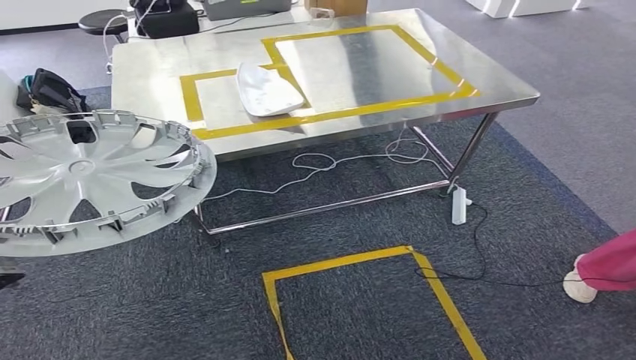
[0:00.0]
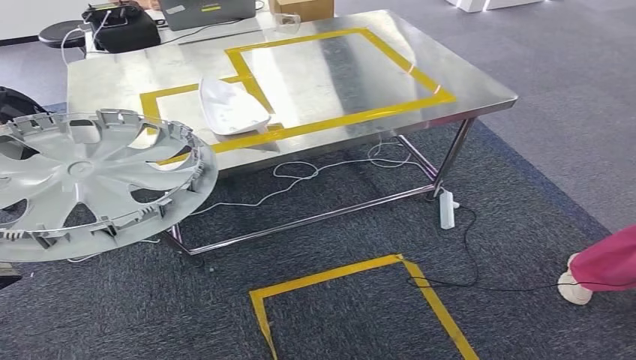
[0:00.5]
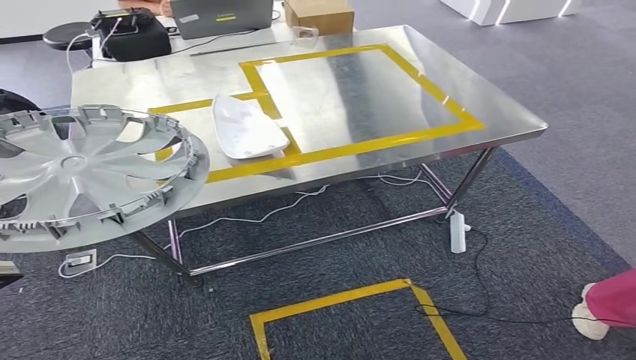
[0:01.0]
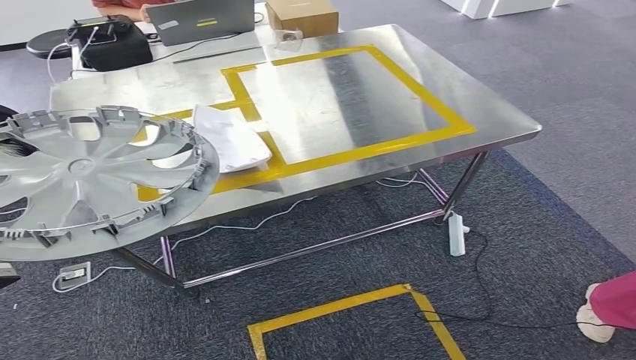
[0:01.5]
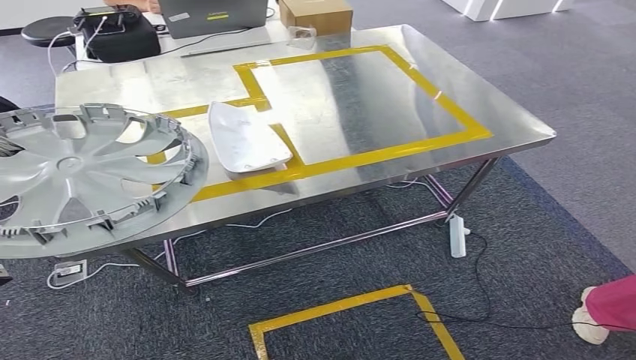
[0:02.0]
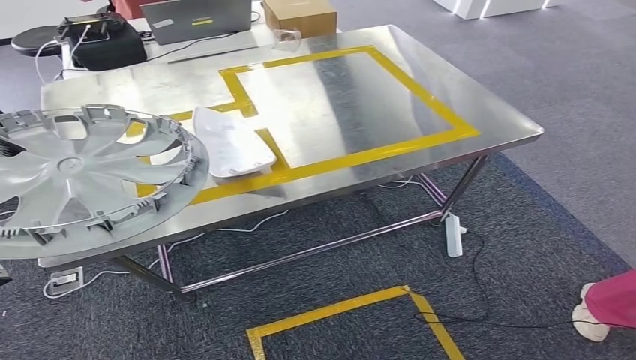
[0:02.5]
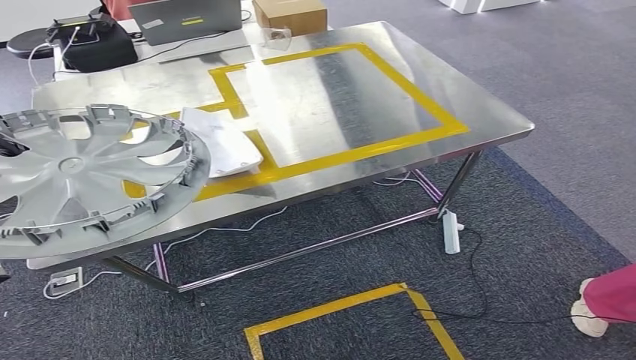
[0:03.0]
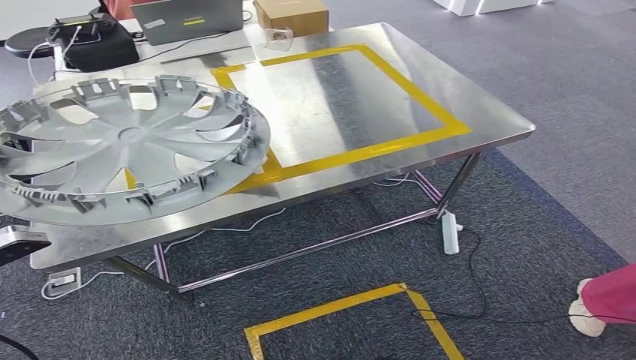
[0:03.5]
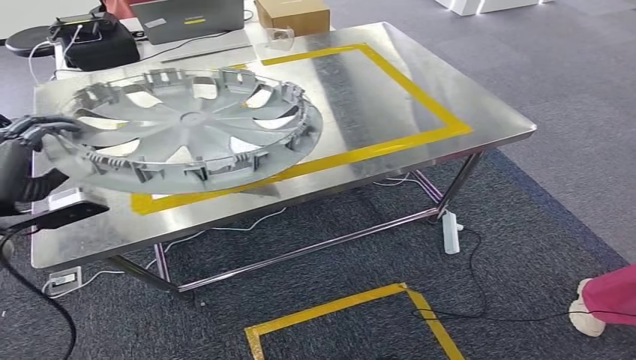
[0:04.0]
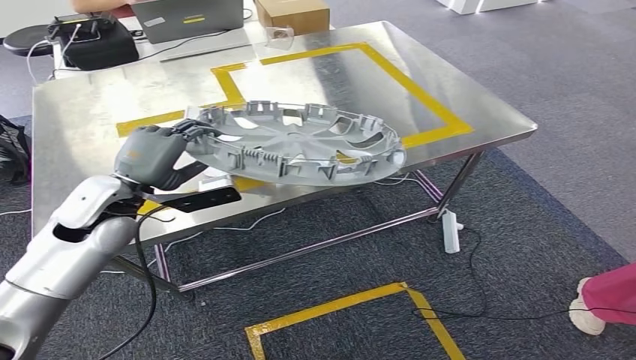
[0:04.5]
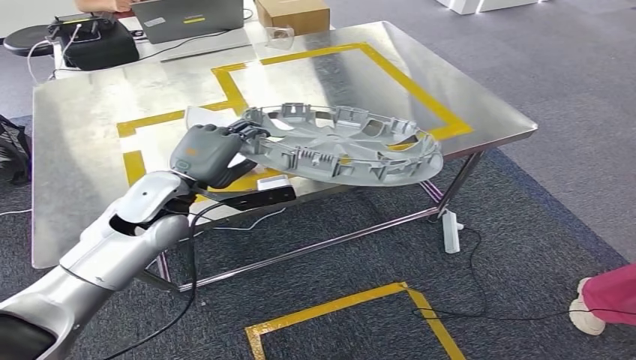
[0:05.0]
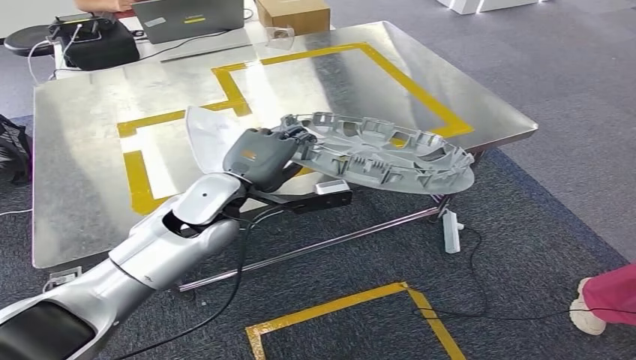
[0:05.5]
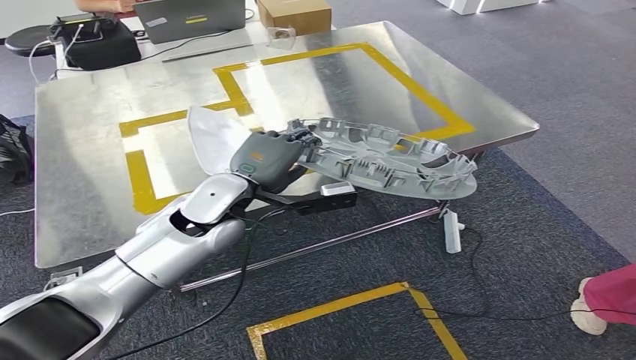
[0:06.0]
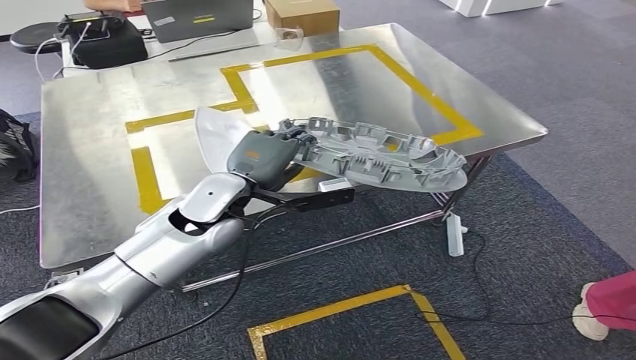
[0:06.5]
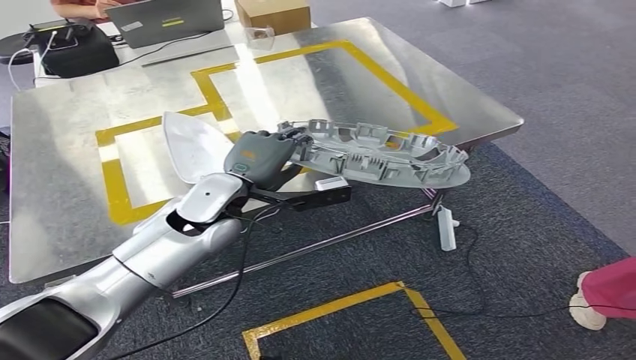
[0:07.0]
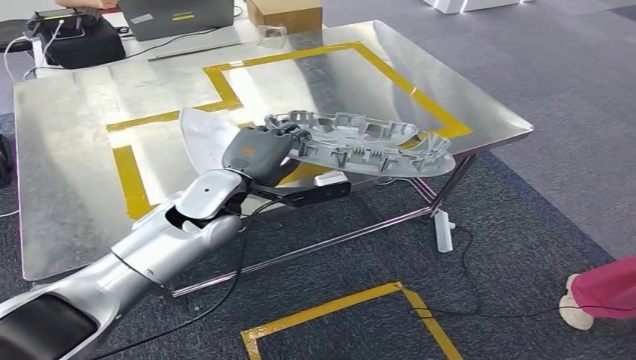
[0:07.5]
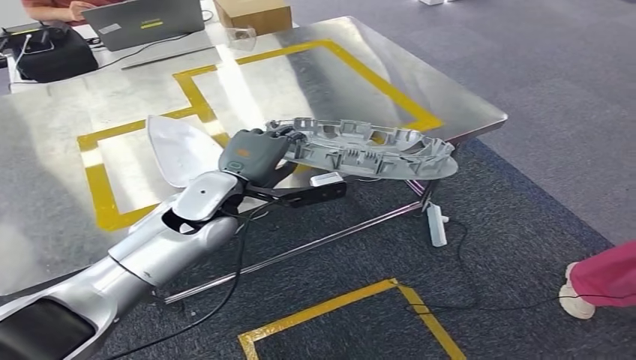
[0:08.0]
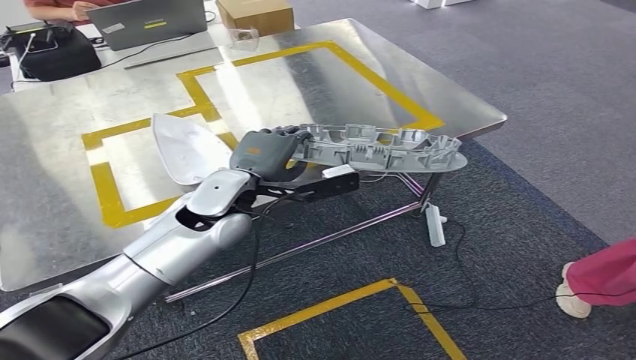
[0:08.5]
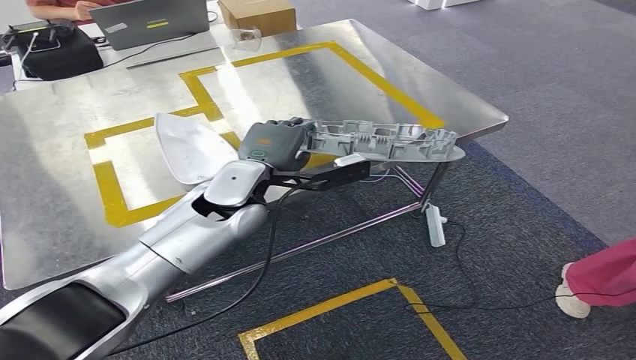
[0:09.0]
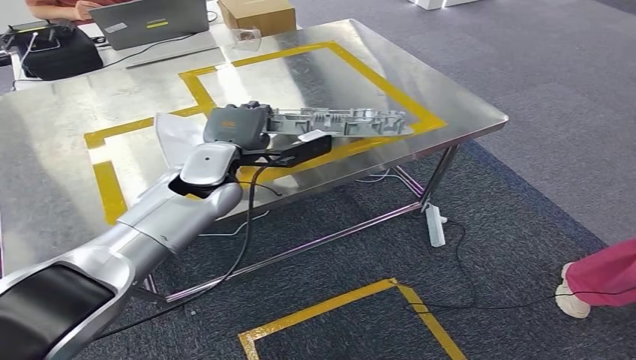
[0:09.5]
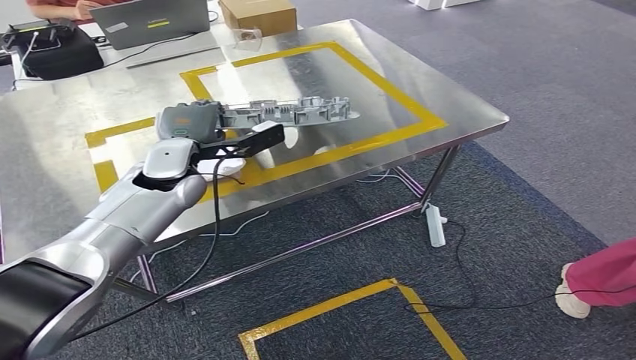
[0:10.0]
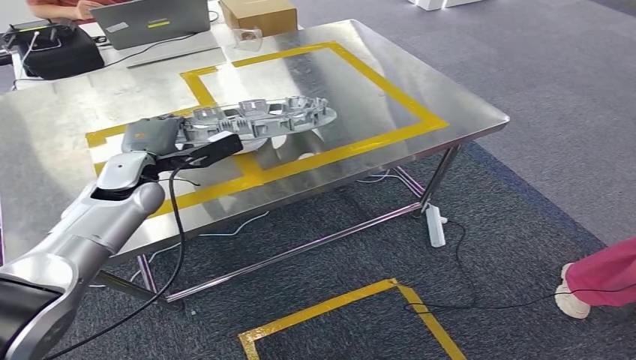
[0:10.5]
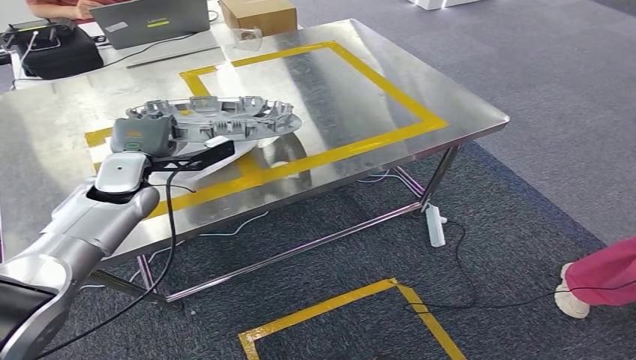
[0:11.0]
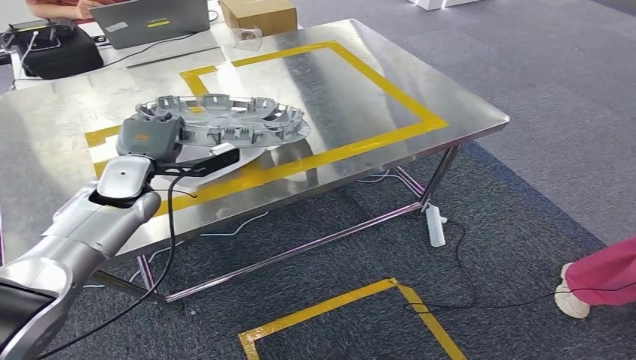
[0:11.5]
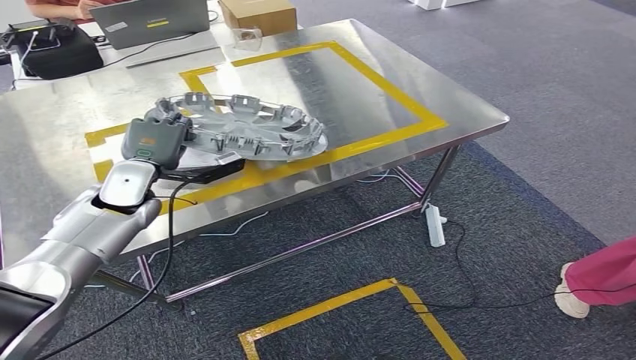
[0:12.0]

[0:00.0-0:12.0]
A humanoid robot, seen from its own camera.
0:10.0 to 0:12.0: The left hand heads to the left, covering some 10 cm.

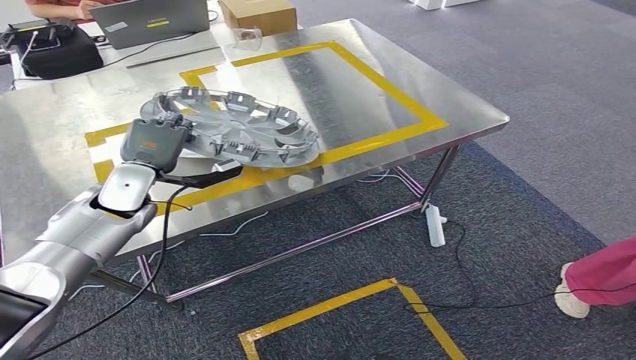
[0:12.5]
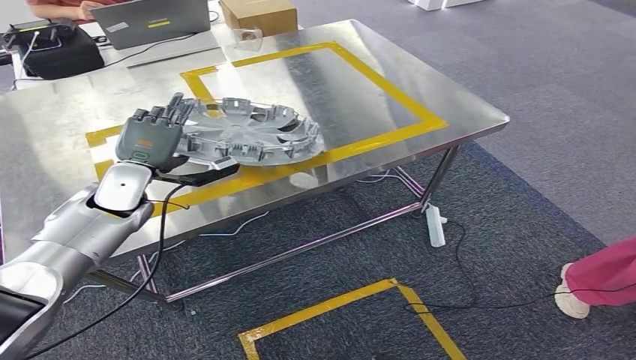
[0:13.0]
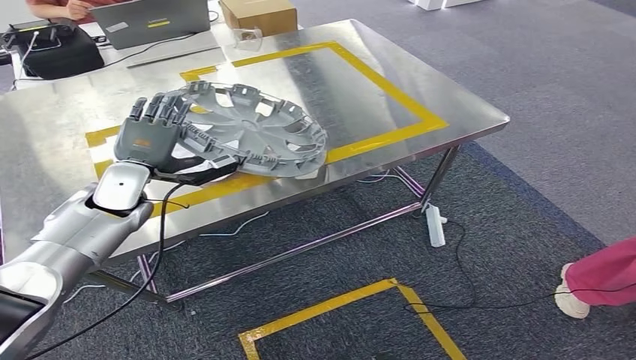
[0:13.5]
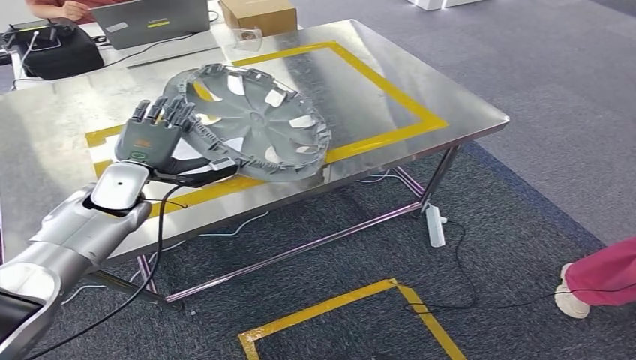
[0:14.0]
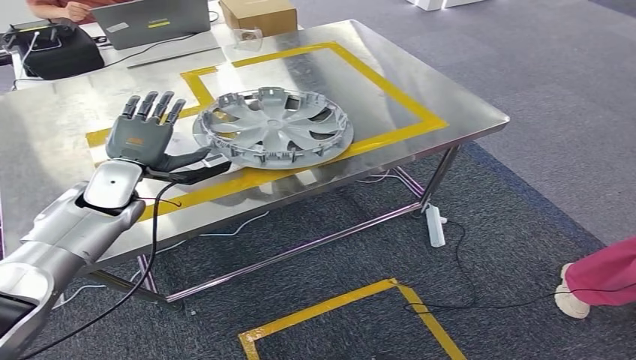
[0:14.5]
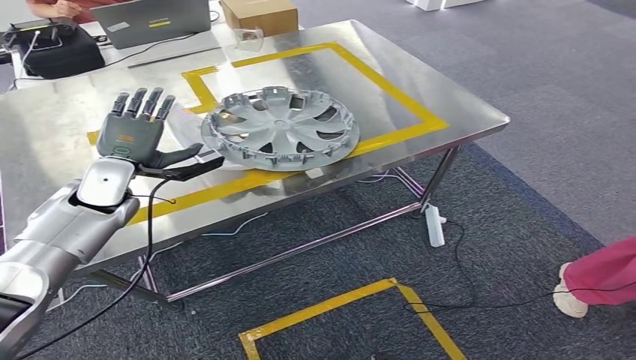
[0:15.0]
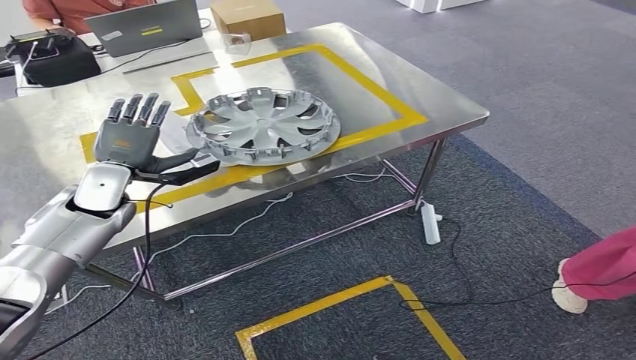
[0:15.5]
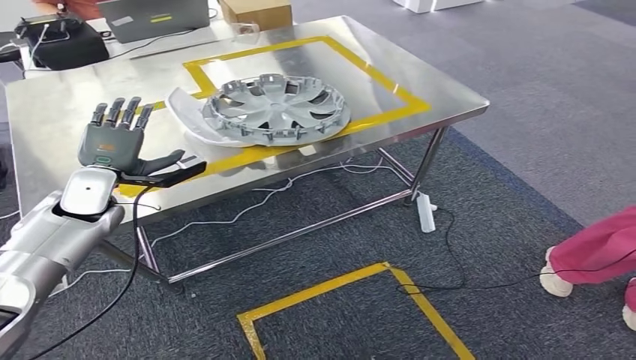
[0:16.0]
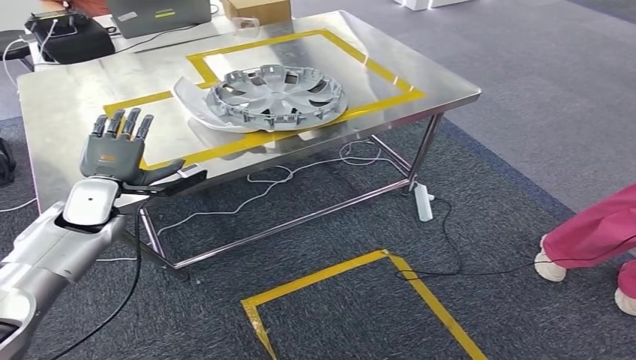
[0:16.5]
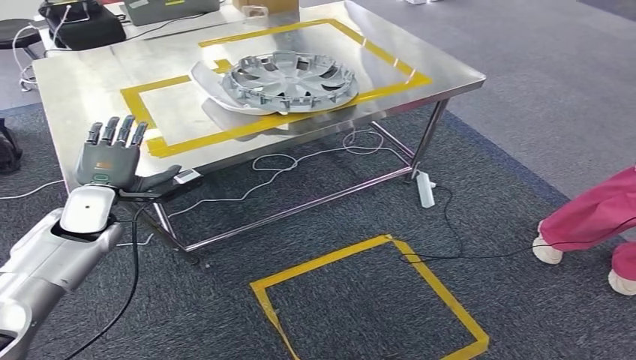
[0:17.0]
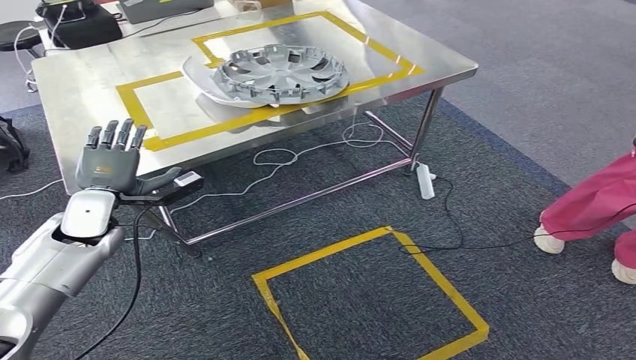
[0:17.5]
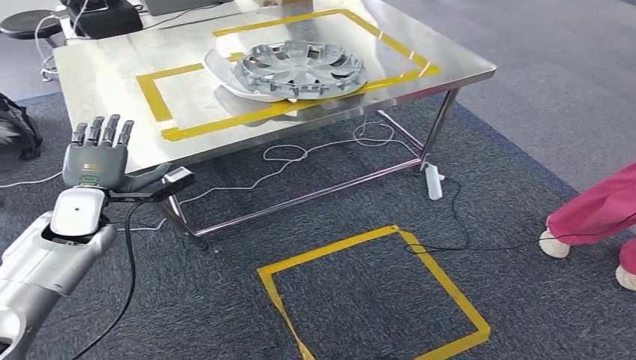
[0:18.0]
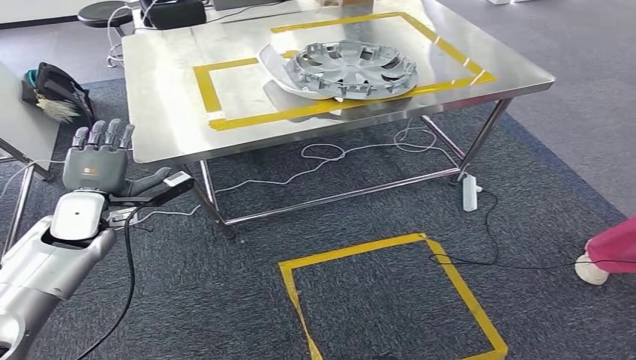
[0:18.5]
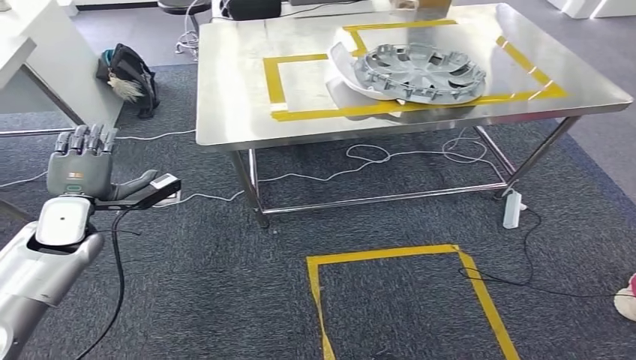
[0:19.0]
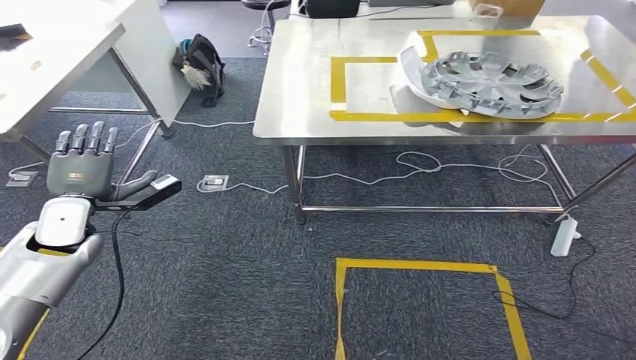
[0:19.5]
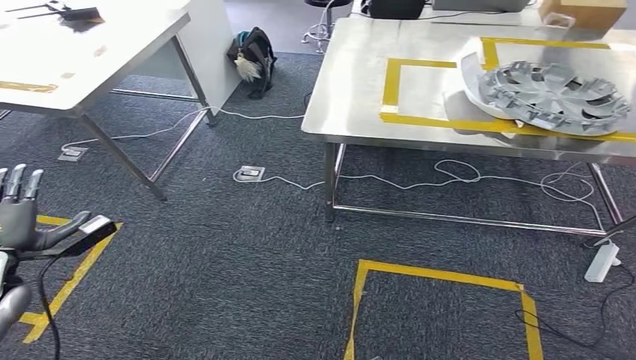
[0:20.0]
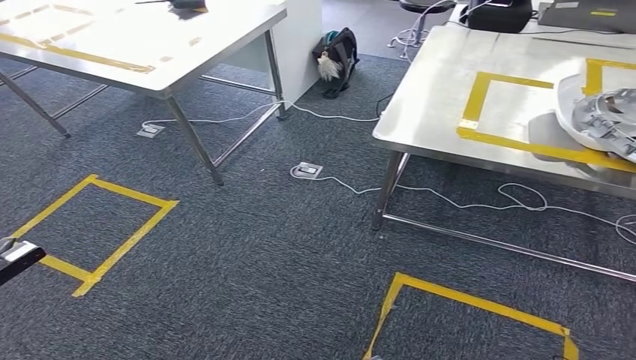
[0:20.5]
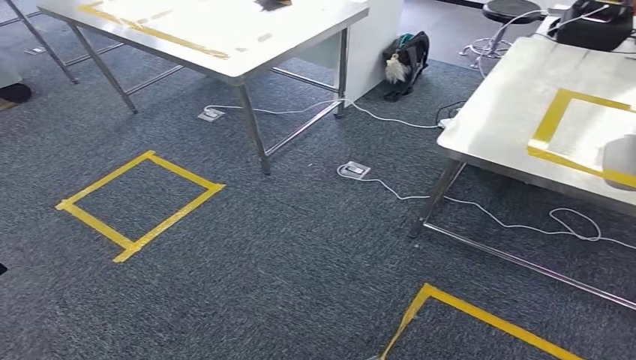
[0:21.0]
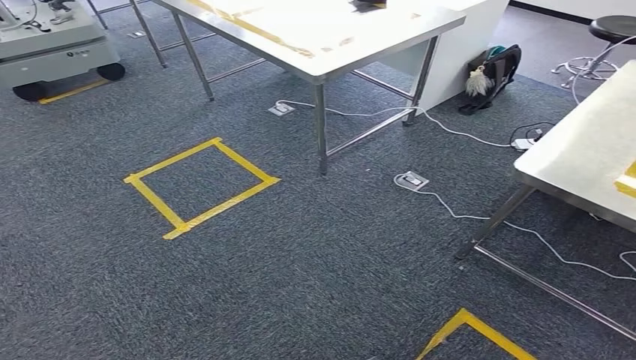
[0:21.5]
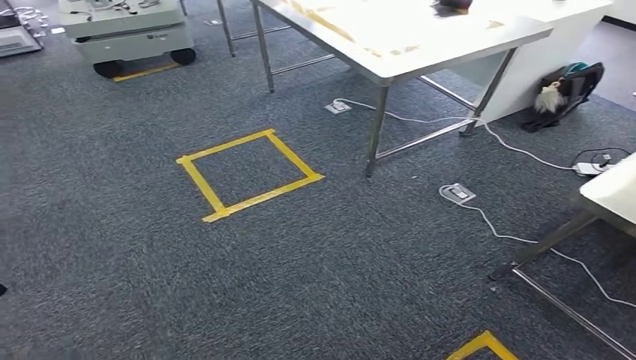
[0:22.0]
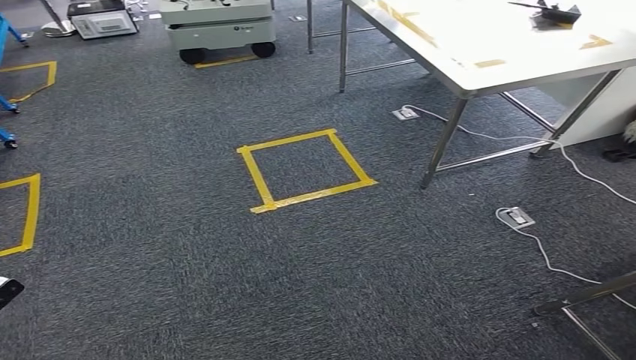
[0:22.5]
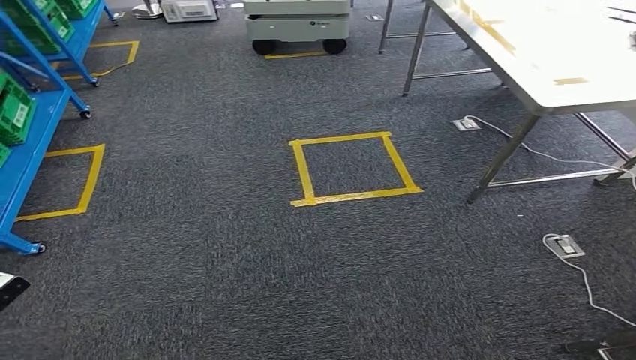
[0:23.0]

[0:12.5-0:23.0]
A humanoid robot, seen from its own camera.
Step, 0:12.5 to 0:16.0: Insert the small component into the corresponding slot on the workbench.
0:12.5 to 0:14.5: There are only small adjustments of the hands.
